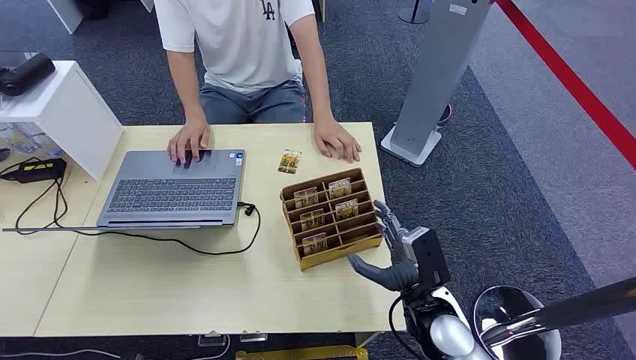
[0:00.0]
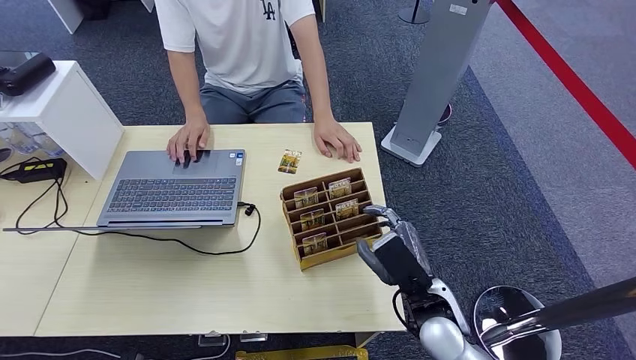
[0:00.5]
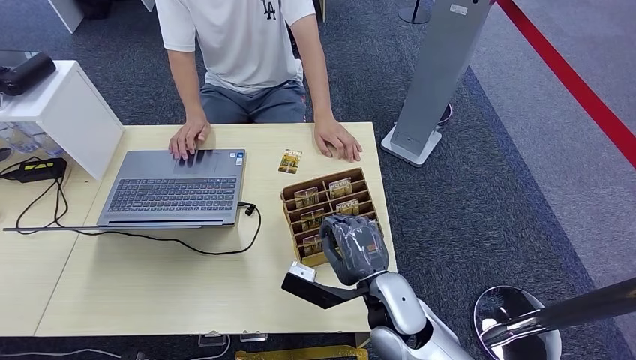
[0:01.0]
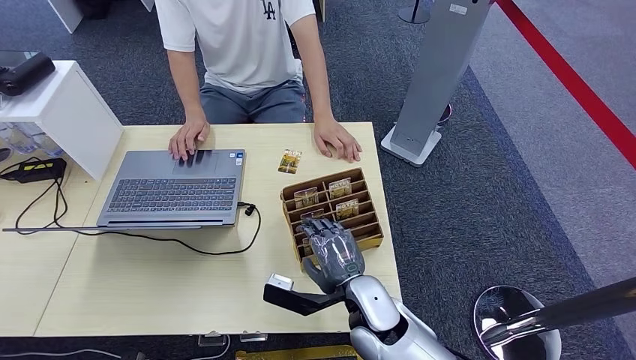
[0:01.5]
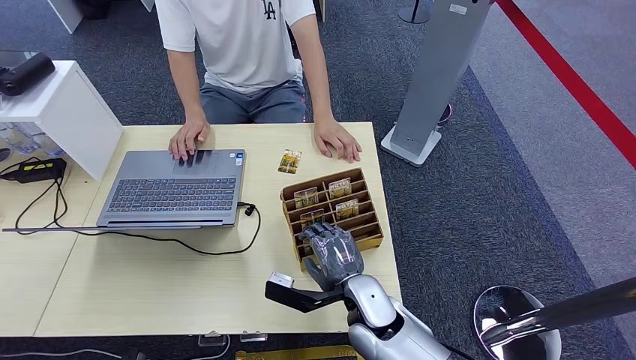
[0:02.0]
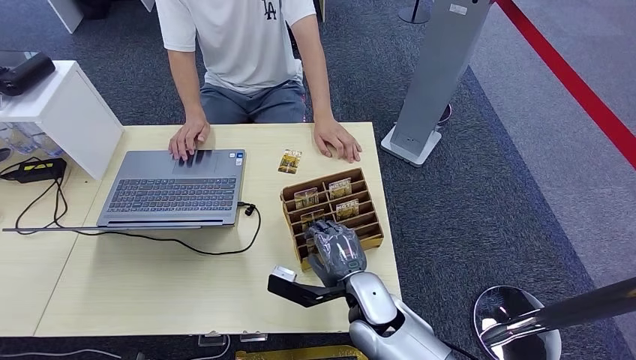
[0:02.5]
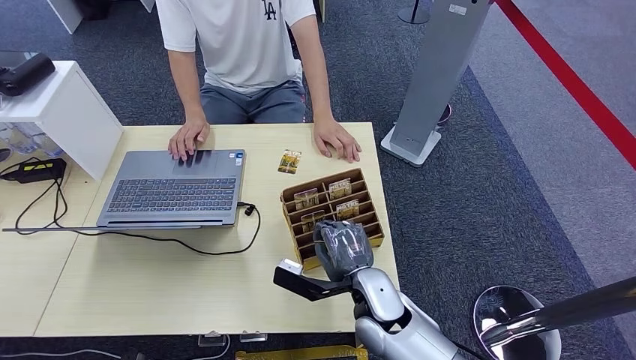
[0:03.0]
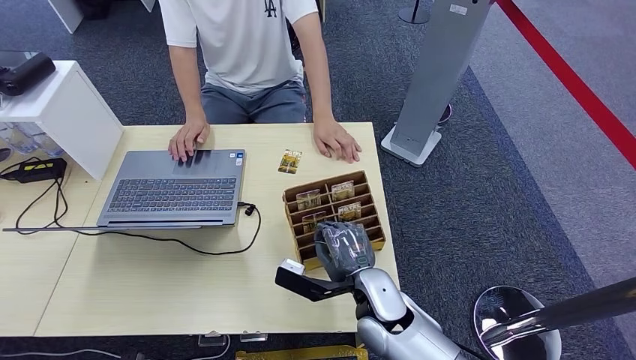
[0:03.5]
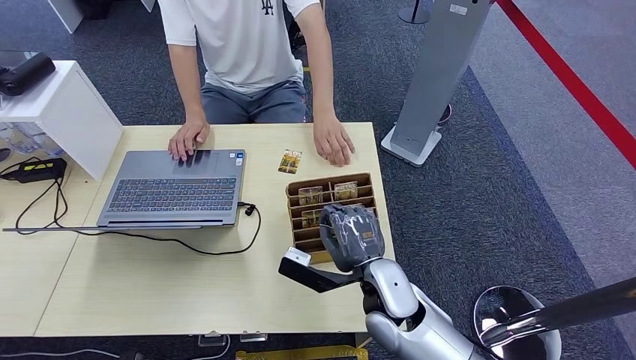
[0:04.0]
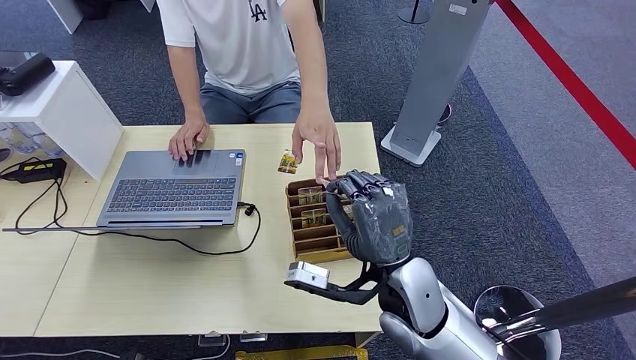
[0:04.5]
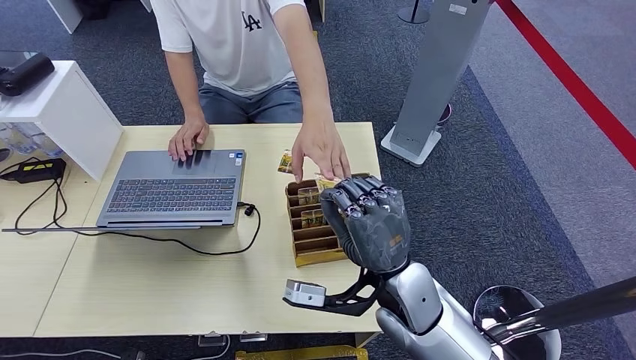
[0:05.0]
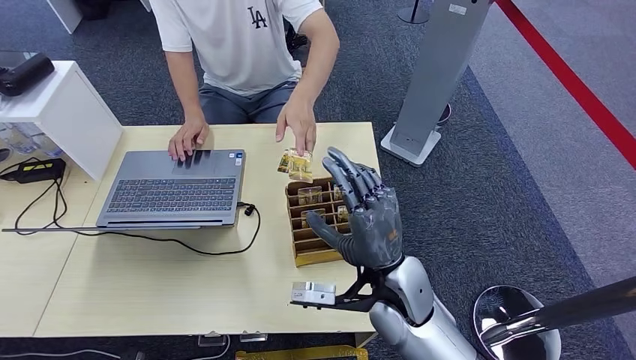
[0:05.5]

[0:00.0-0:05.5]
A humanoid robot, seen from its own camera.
Step, 0:00.0 to 0:04.0: Pick up the room card from the card holder.
Step, 0:04.5 to 0:05.0: Hand the room card to the target.
0:02.0 to 0:03.5: There are only small adjustments of the hands.
0:03.5 to 0:05.5: The right hand goes upward and returns, some 10 cm each way.
